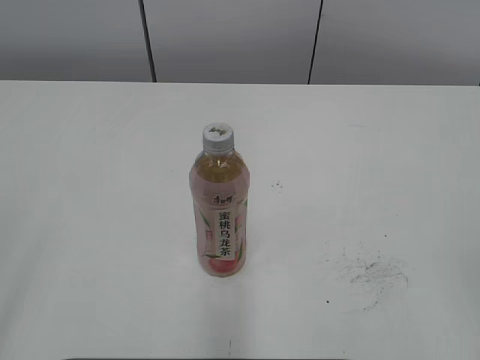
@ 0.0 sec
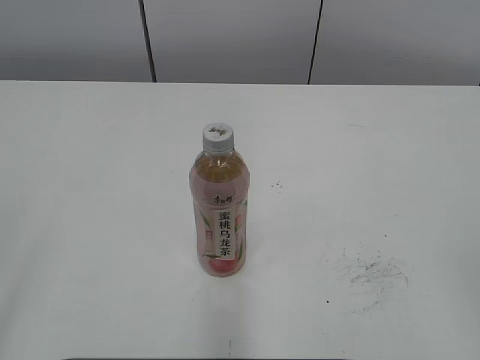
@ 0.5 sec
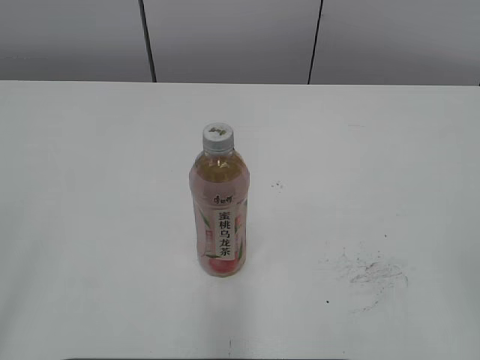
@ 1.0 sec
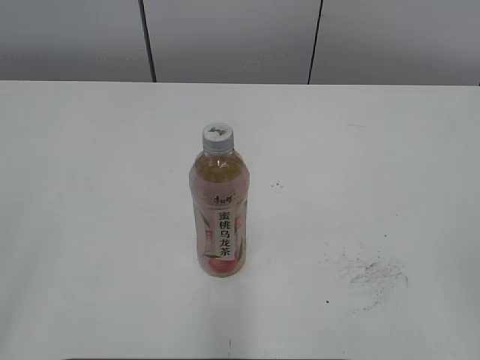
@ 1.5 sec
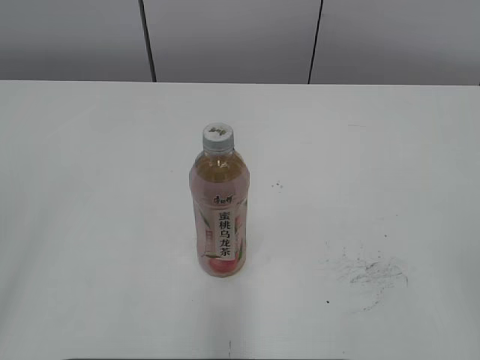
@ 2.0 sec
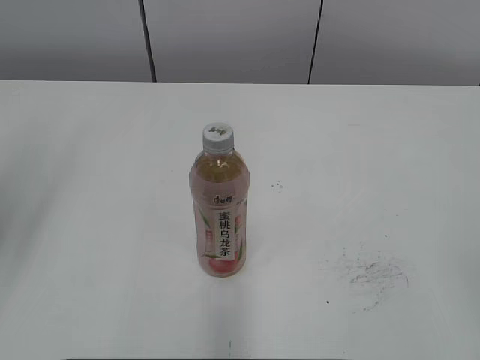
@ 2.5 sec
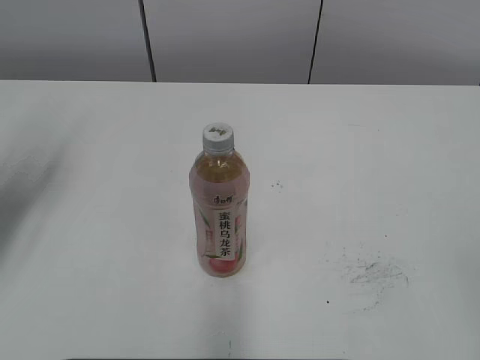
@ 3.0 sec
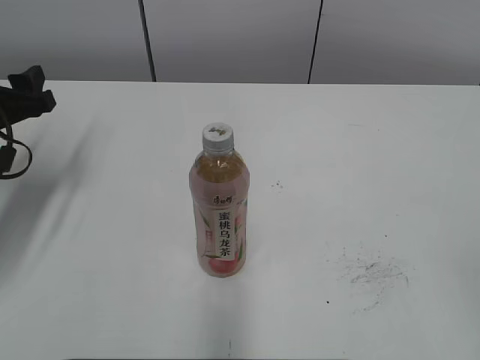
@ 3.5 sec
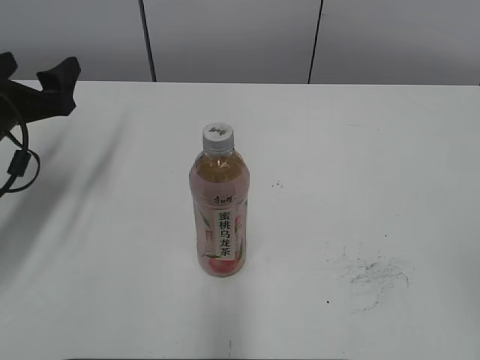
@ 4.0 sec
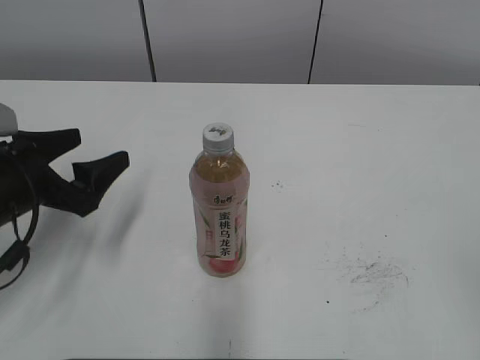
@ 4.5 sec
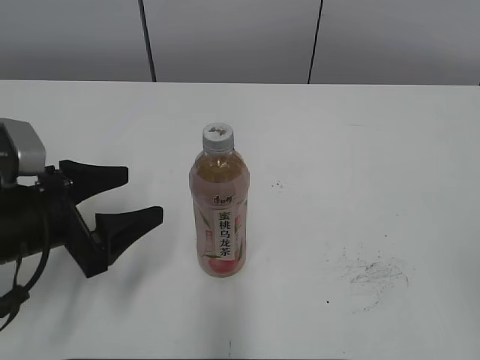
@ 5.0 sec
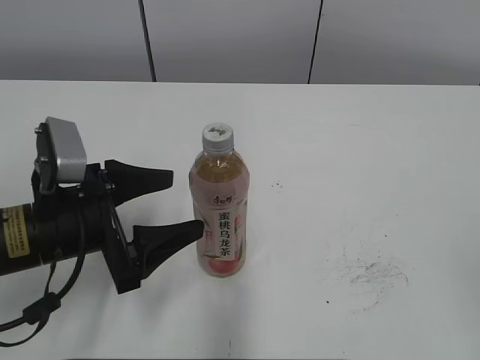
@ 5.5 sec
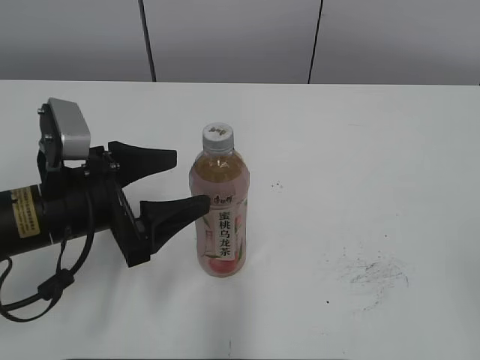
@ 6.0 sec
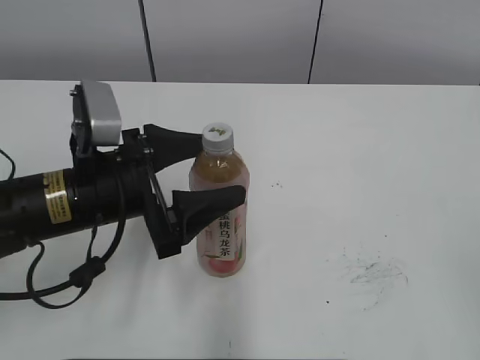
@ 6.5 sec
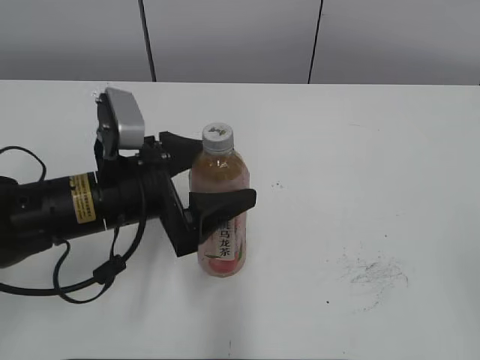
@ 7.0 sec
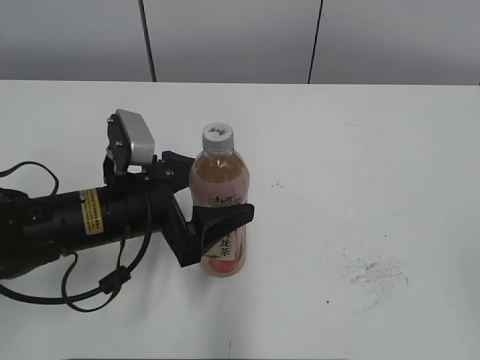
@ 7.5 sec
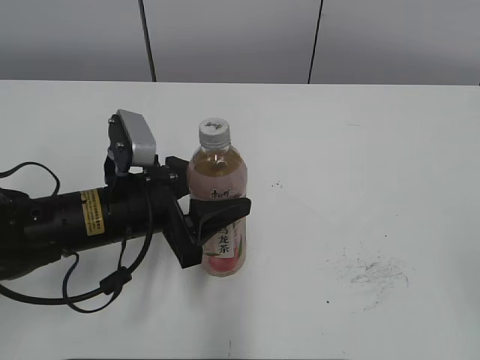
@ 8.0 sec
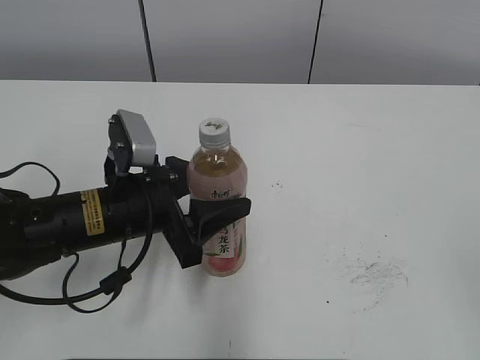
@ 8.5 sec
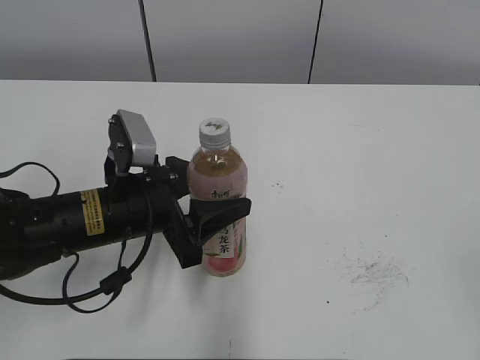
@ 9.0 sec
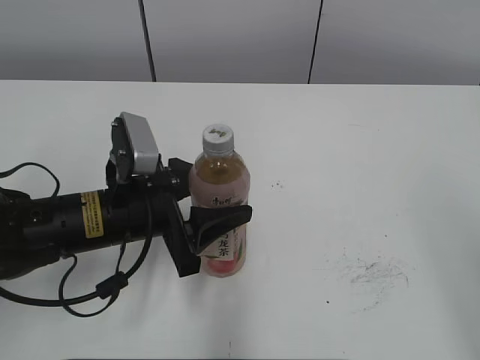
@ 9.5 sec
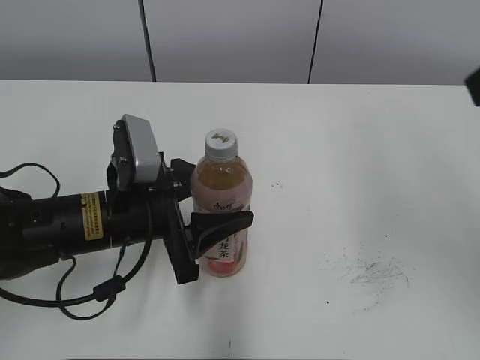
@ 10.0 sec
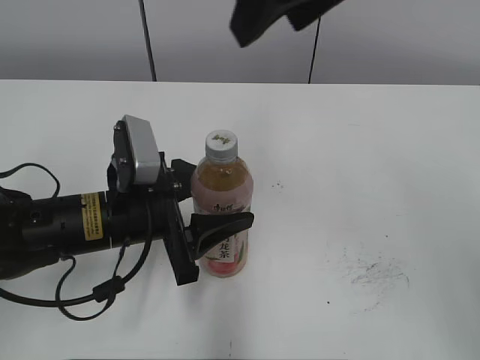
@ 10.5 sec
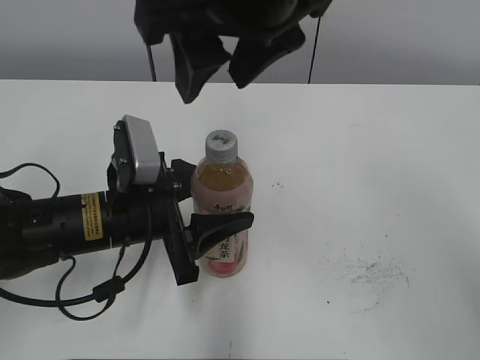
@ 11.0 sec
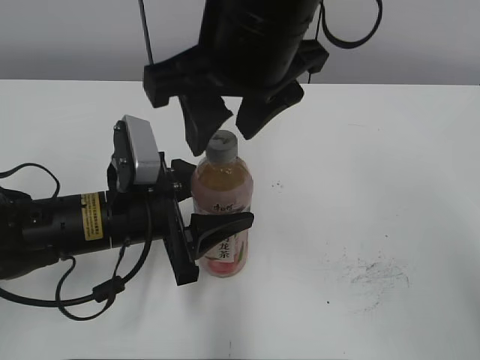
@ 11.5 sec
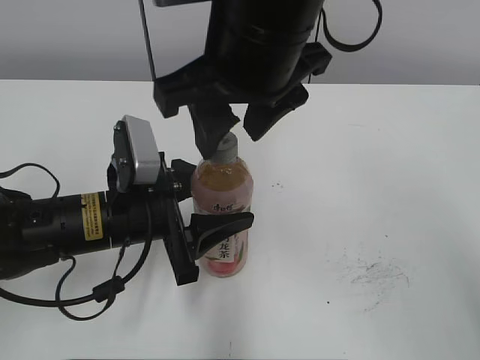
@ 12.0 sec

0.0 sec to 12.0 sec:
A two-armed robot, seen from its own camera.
Step, 0.0 sec to 9.0 sec: Grab the Peach Oolong Tea with the left hand.
2.0 sec to 4.0 sec: The left gripper goes some 35 cm forward and downward, and opens its fingers.
4.0 sec to 6.0 sec: The left gripper moves to the right and backward, some 15 cm.
6.0 sec to 8.0 sec: The left gripper ends up roughly 5 cm from where it was, and closes up.
8.0 sec to 10.0 sec: The right gripper heads forward and upward, covering about 20 cm.
10.0 sec to 12.0 sec: The right gripper shifts roughly 20 cm to the left.

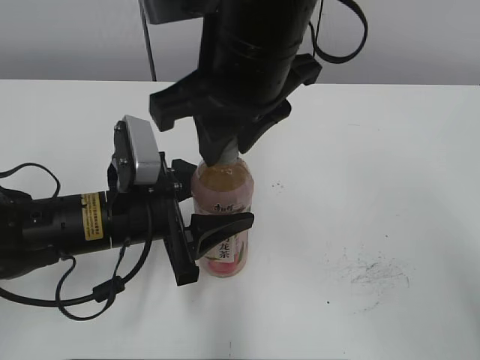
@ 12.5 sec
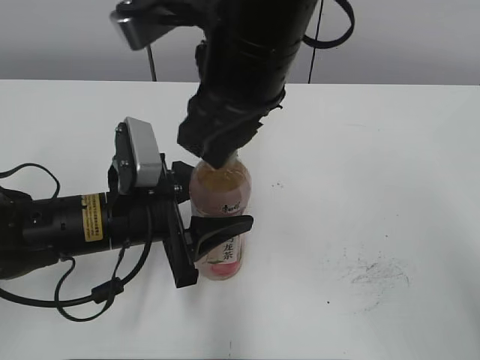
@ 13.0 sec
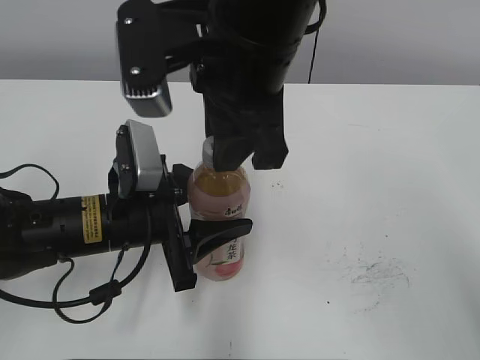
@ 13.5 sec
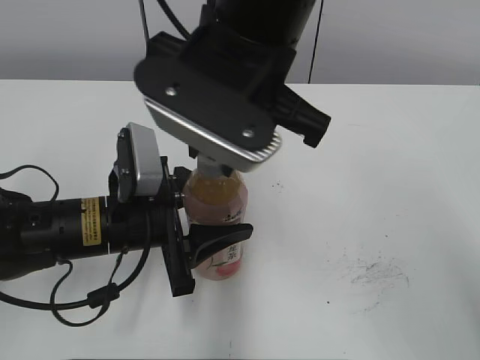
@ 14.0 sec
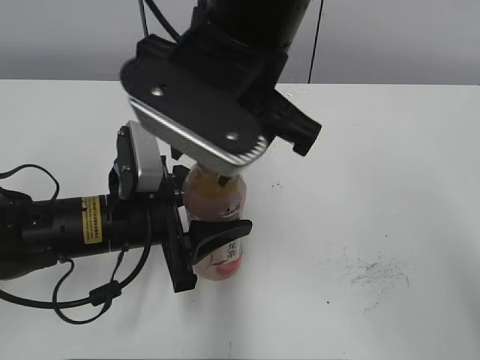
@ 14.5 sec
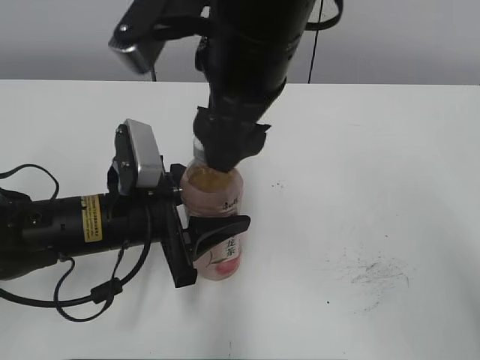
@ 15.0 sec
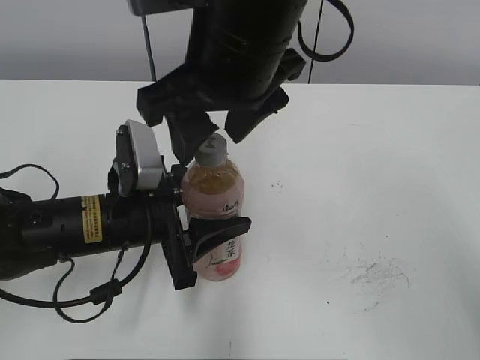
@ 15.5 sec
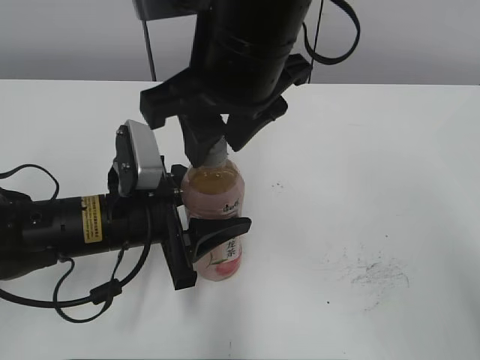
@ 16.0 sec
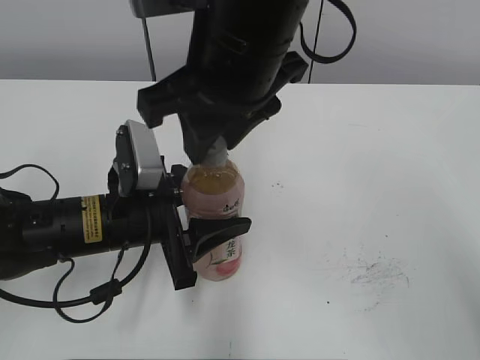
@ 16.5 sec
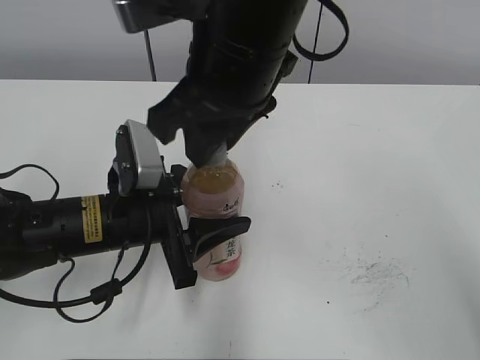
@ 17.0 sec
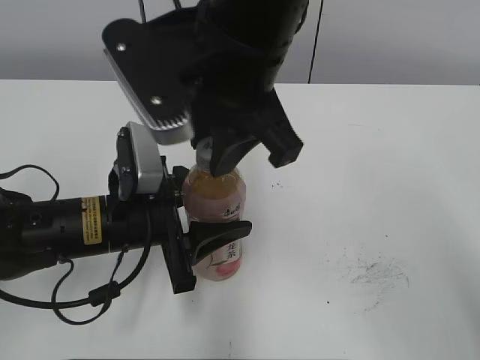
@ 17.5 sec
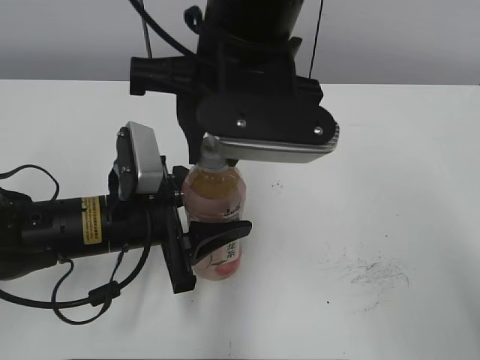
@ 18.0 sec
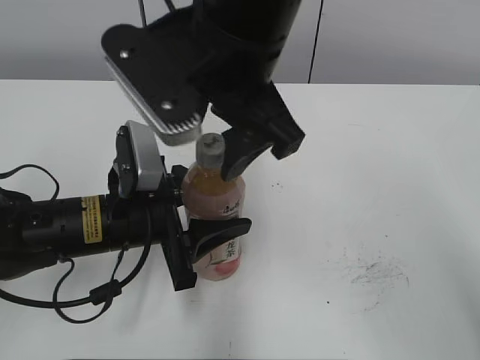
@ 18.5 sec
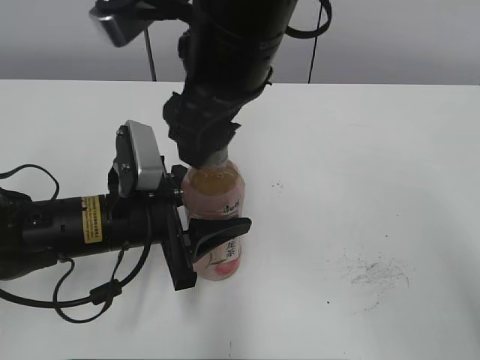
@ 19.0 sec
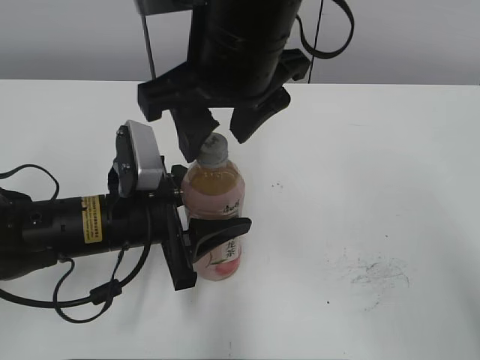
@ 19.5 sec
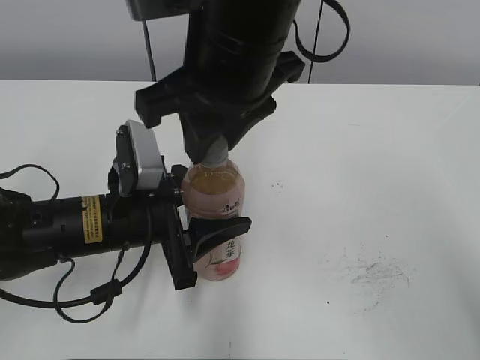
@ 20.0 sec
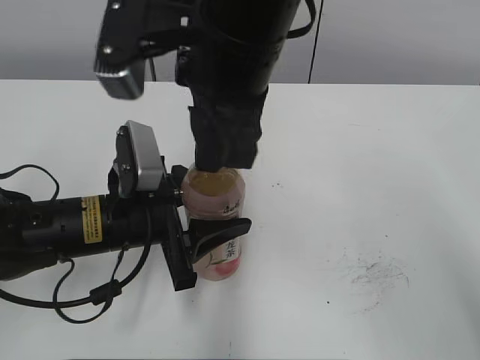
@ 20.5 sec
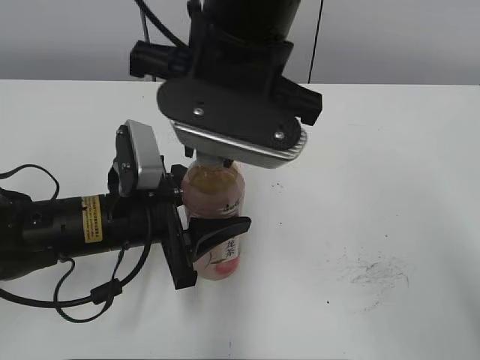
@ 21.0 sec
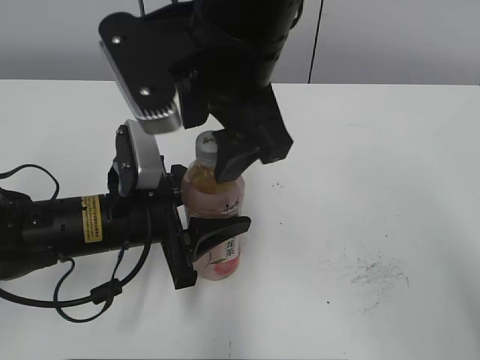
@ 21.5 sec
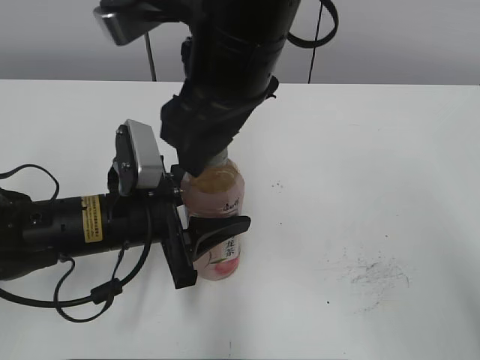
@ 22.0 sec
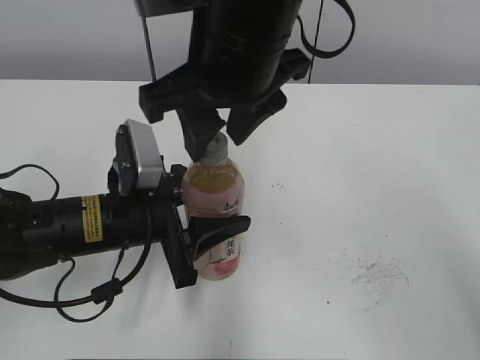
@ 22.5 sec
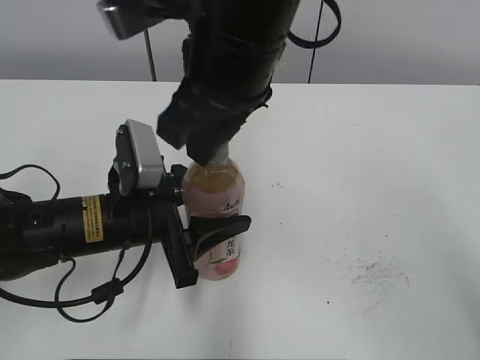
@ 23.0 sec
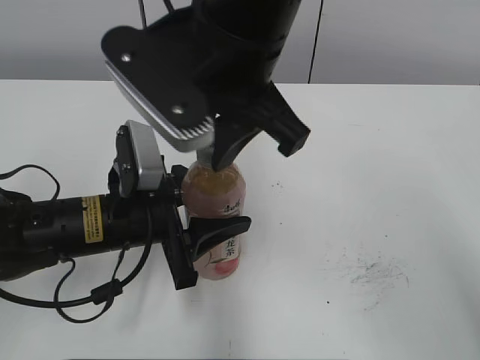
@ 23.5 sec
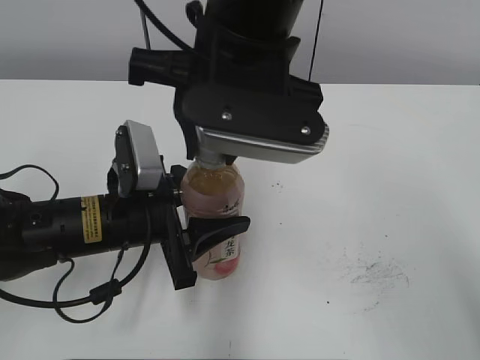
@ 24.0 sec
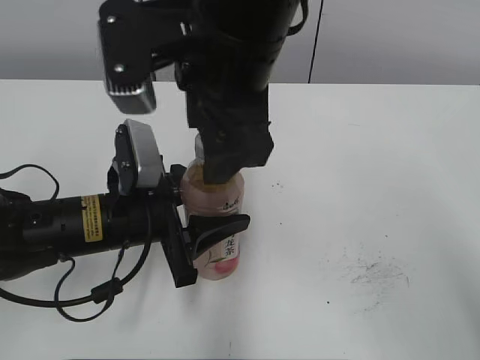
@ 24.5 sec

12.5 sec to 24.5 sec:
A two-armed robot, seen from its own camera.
14.5 sec to 16.5 sec: The right gripper opens, then closes once more.
16.5 sec to 18.5 sec: The right gripper opens.
18.5 sec to 20.5 sec: The right gripper closes its fingers.
20.5 sec to 22.5 sec: The right gripper opens up.
22.5 sec to 24.5 sec: The right gripper opens up.

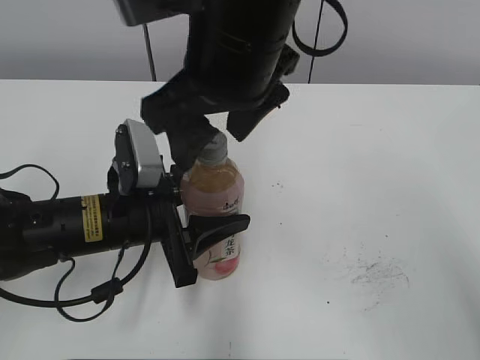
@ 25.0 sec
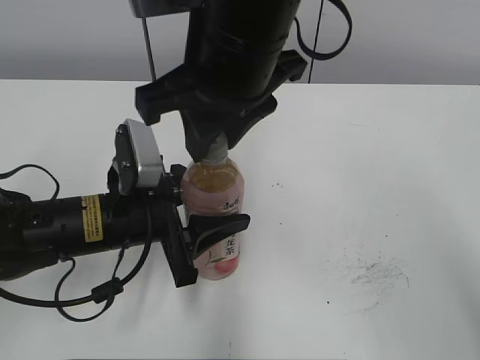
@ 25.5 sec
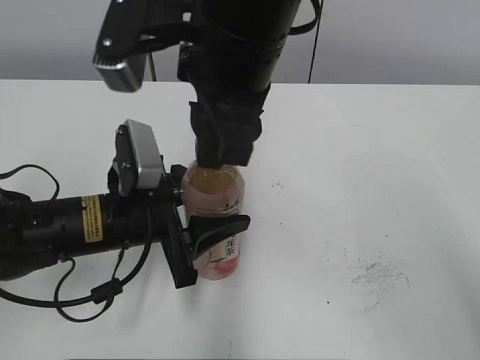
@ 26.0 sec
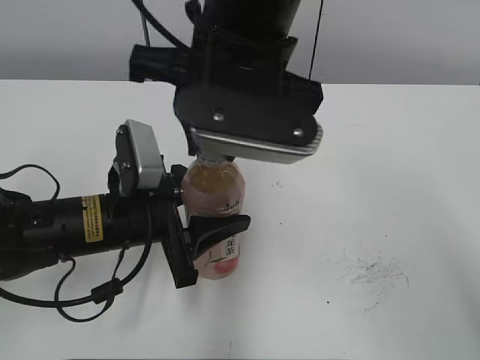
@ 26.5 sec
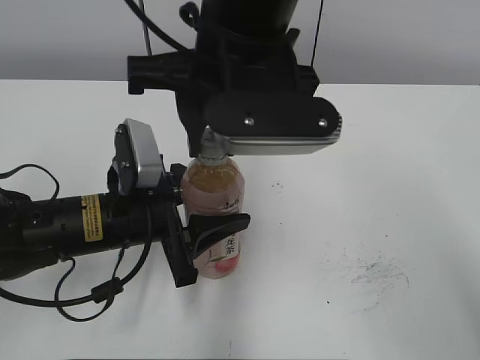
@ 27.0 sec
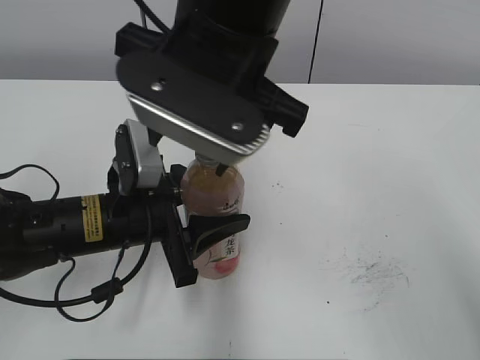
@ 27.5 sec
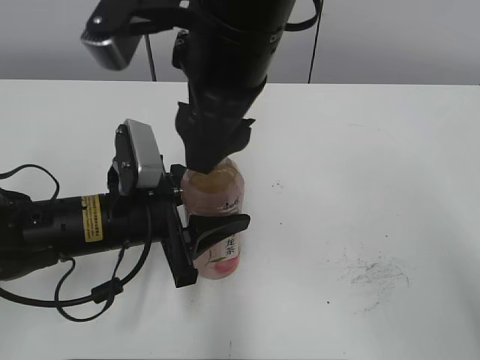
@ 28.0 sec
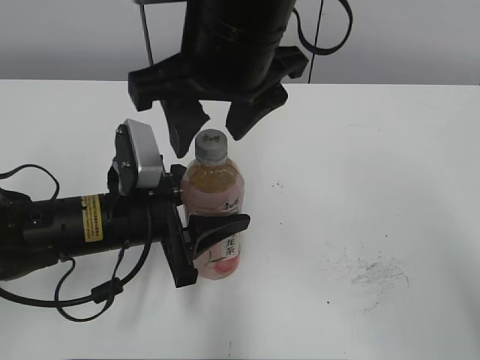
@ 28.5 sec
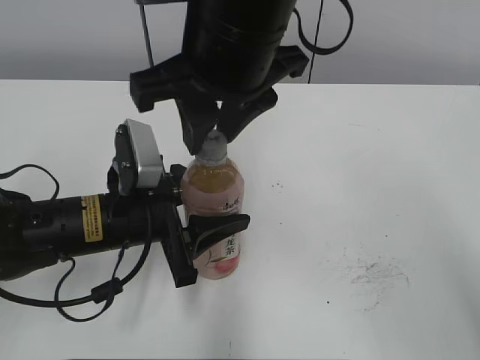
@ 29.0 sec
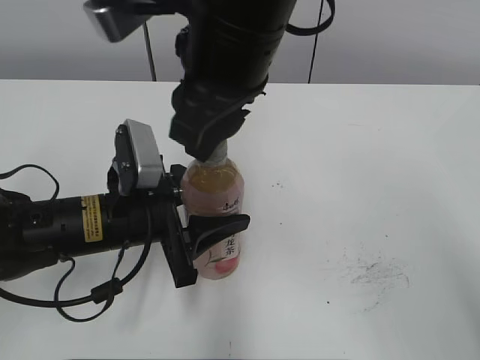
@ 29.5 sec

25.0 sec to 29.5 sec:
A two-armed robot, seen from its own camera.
25.0 sec to 27.0 sec: The right gripper closes its fingers.
27.0 sec to 29.5 sec: The right gripper opens, then closes once more.
